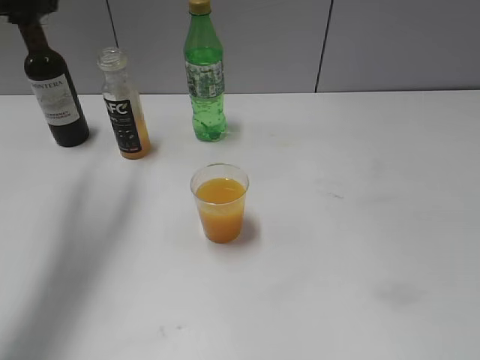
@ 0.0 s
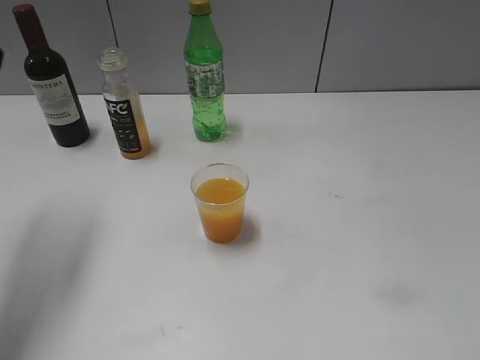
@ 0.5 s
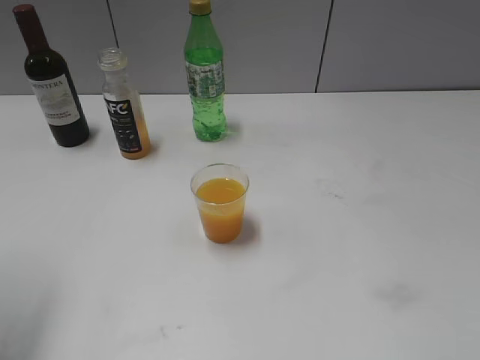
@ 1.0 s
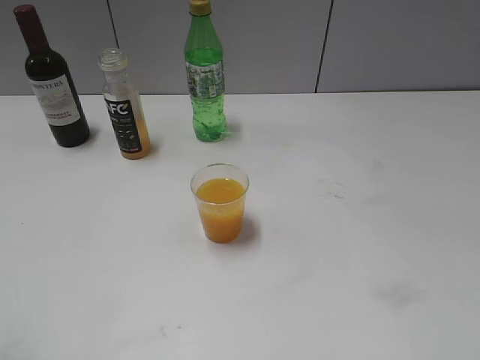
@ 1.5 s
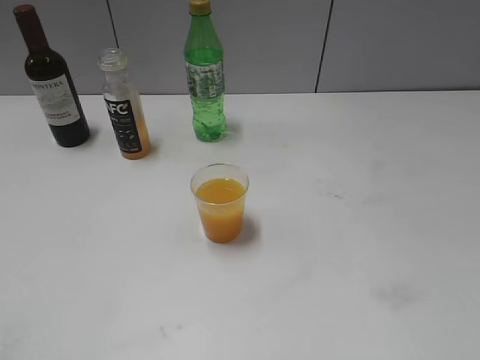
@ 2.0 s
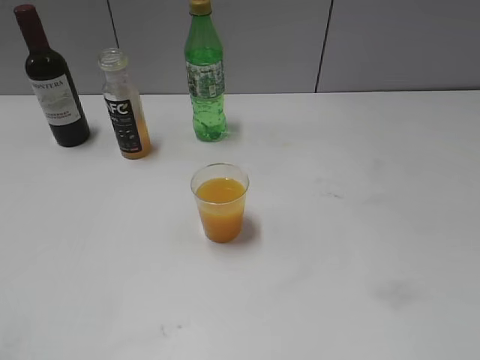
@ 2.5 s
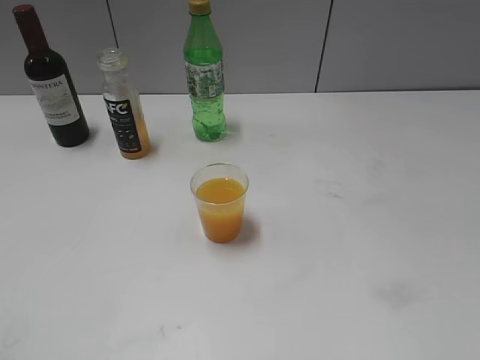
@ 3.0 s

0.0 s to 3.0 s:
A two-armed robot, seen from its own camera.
0.0 to 1.5 s: The left gripper moves backward, roughly 25 cm.

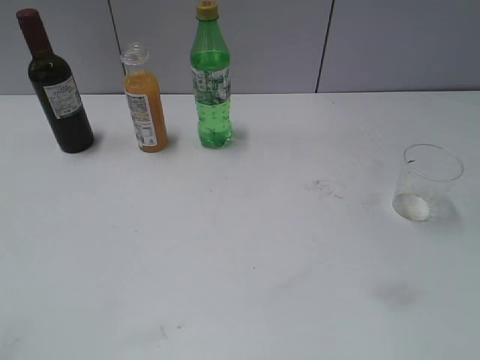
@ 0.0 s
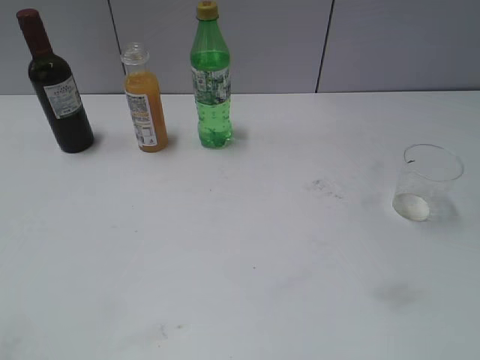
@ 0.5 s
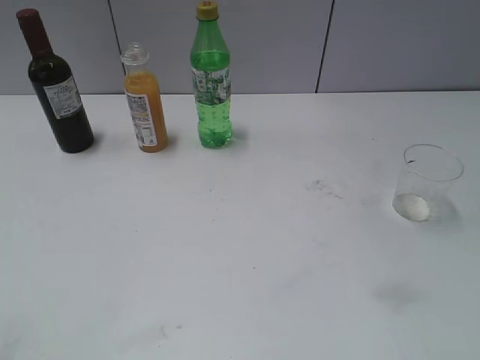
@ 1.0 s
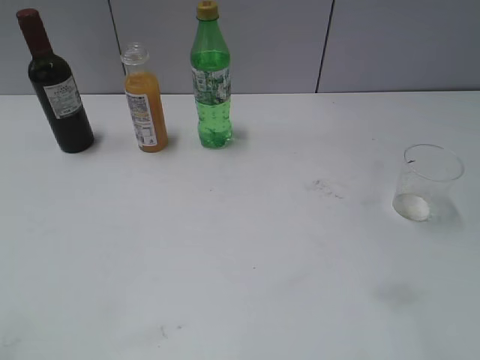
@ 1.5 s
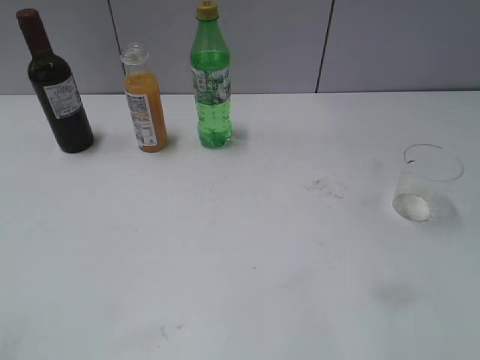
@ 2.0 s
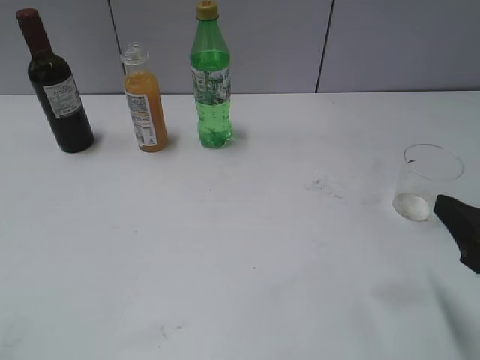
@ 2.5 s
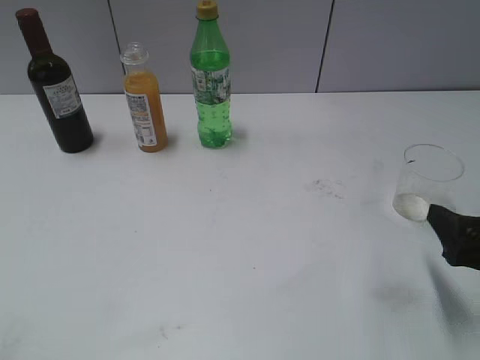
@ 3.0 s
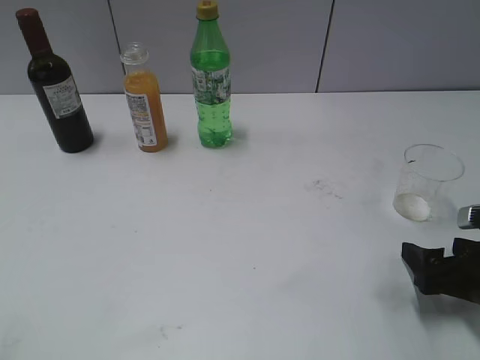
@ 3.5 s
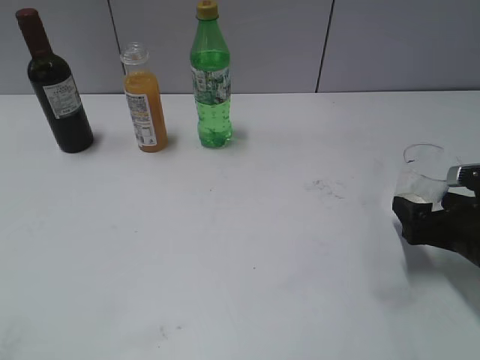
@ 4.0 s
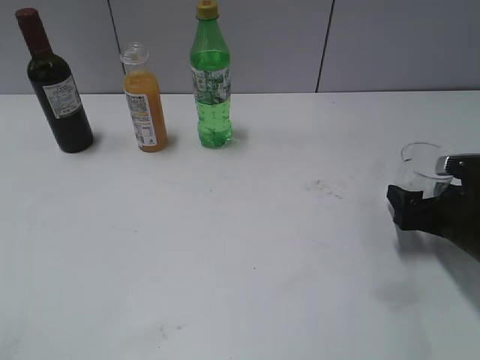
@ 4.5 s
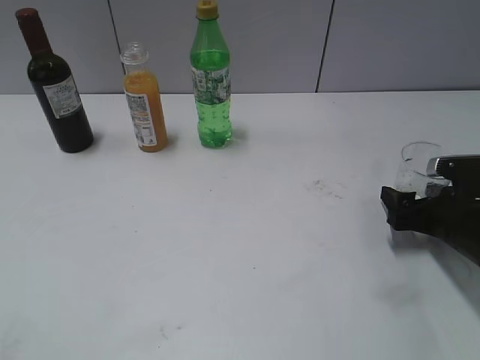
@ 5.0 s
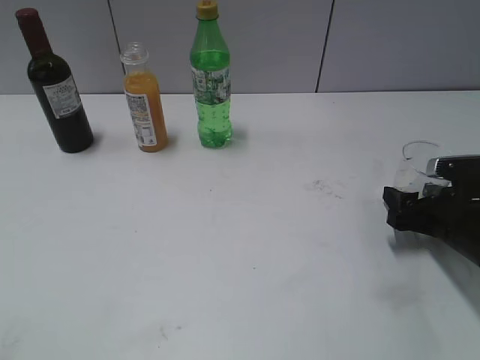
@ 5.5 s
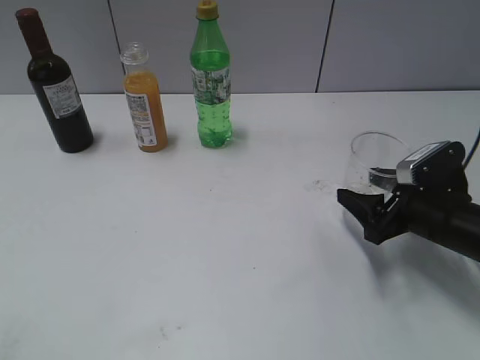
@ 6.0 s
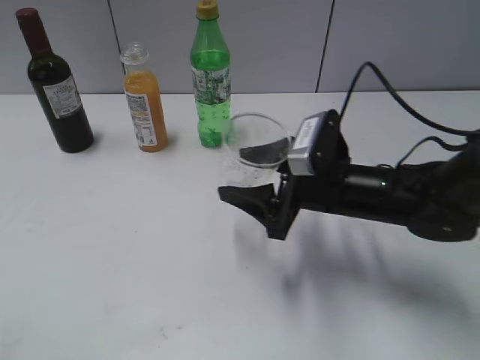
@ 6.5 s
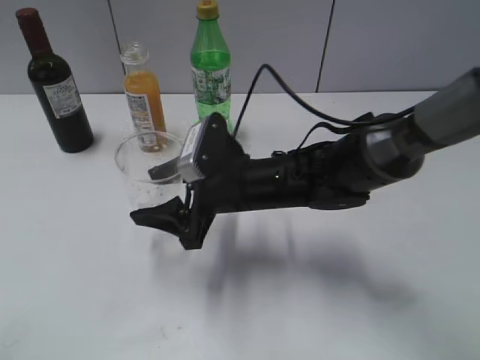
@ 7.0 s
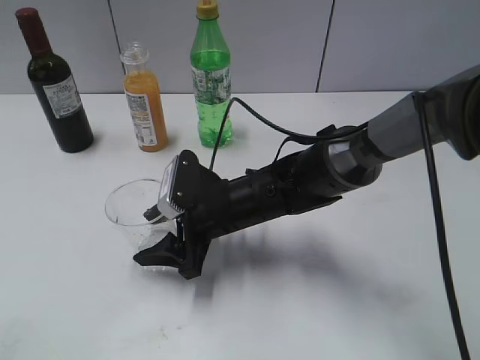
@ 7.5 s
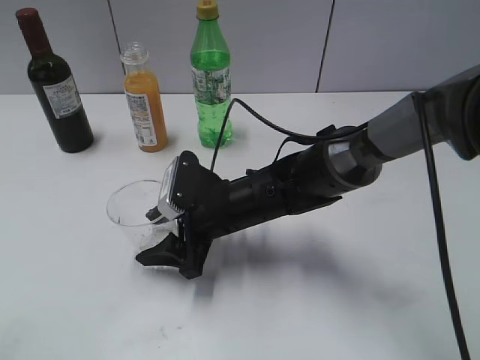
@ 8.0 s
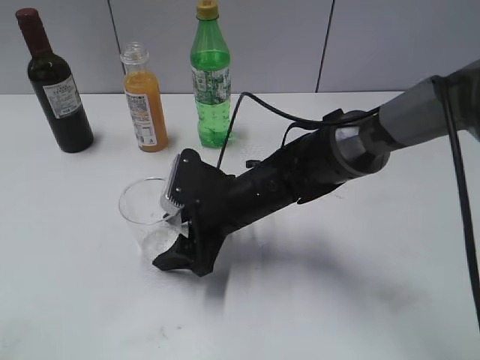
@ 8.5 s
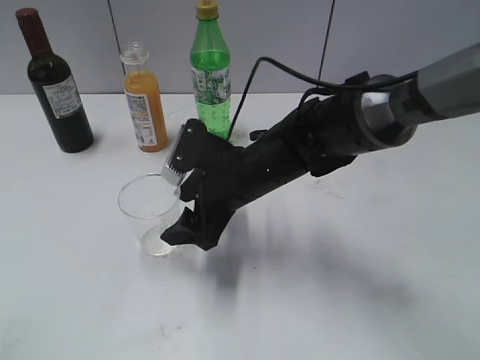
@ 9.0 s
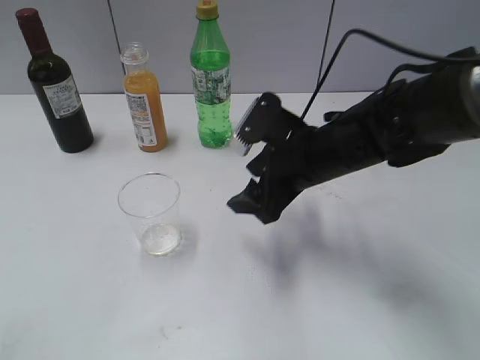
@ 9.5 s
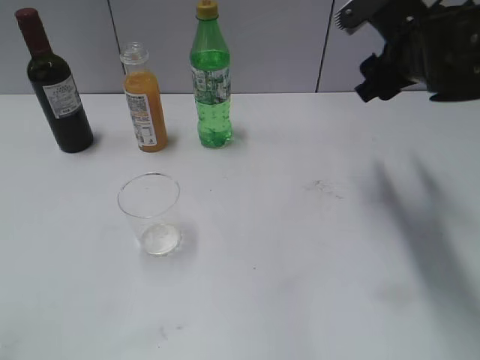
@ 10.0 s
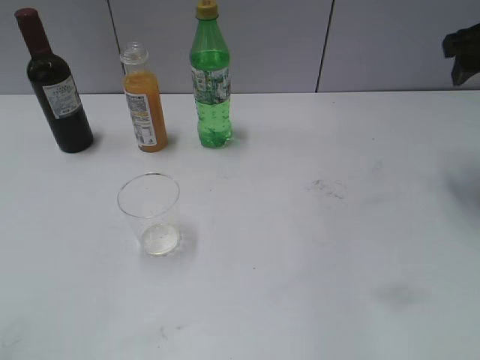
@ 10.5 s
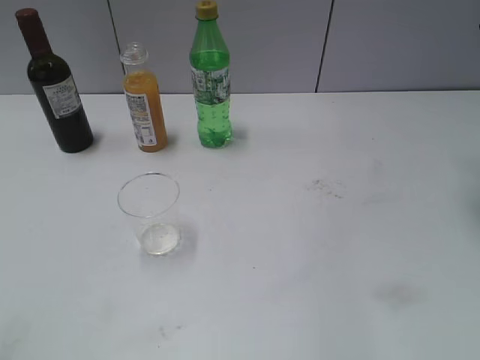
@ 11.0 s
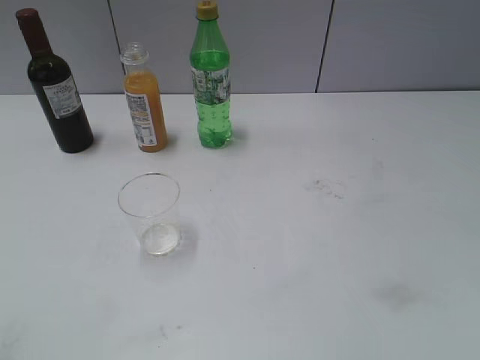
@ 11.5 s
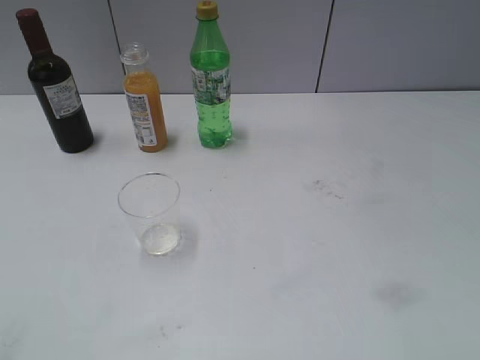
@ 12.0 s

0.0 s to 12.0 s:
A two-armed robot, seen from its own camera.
Step, 2.5 to 5.0 s: Grasp the transparent cup with right gripper.
Step, 6.0 to 9.0 s: Place the transparent cup on the table with right gripper.
2.0 to 4.0 s: The right gripper goes about 20 cm downward and forward, and opens.
4.0 to 6.0 s: The right gripper moves roughly 5 cm, and closes its fingers.
6.0 to 8.0 s: The right gripper moves to the left, approximately 25 cm.
8.0 to 10.0 s: The right gripper shifts roughly 25 cm to the right and upward.
10.0 to 12.0 s: The right gripper goes about 25 cm backward and to the right.

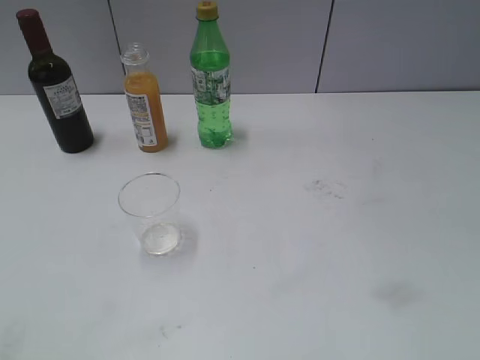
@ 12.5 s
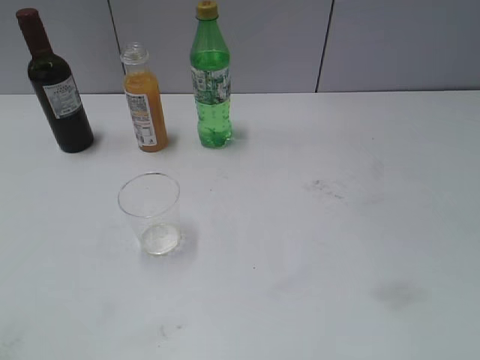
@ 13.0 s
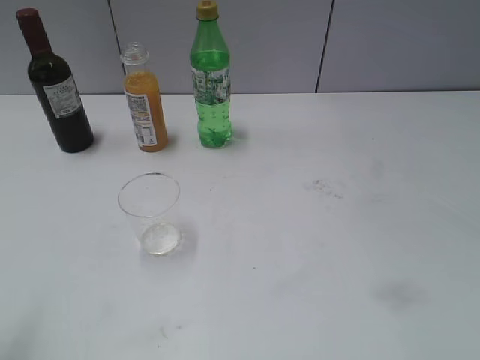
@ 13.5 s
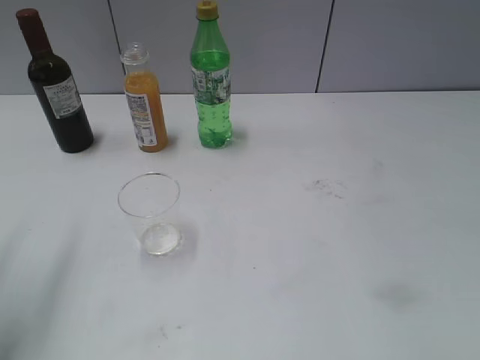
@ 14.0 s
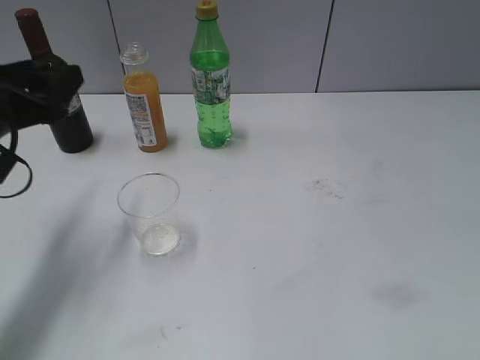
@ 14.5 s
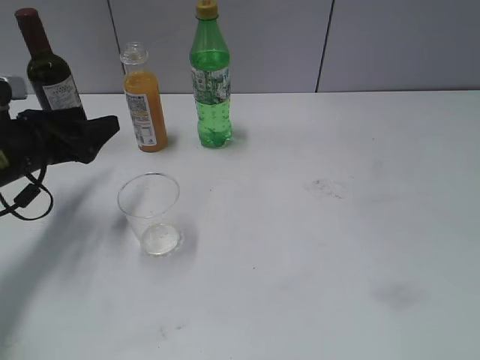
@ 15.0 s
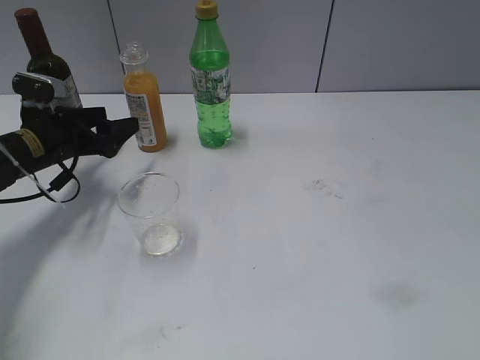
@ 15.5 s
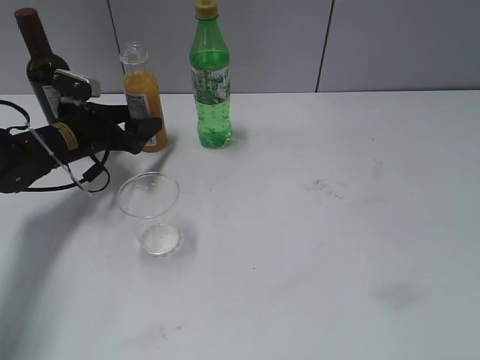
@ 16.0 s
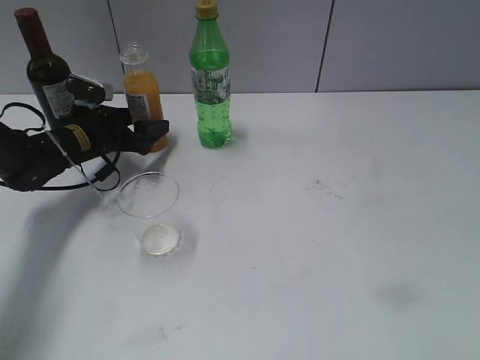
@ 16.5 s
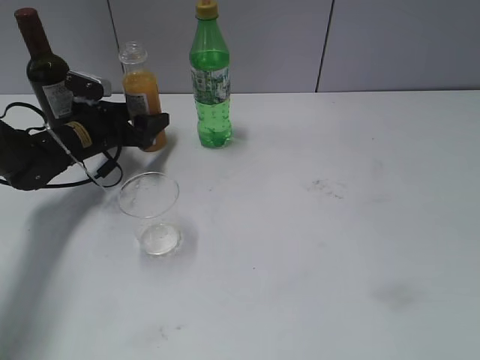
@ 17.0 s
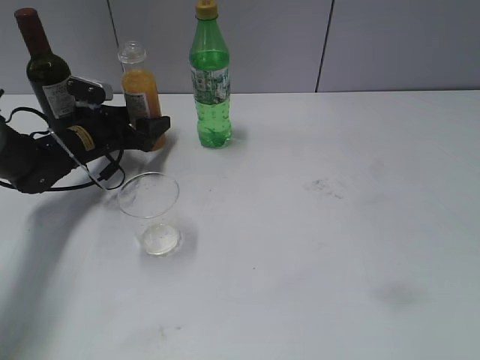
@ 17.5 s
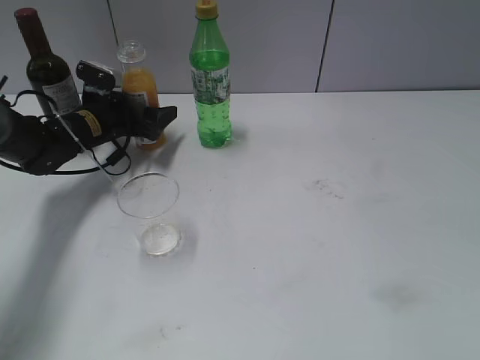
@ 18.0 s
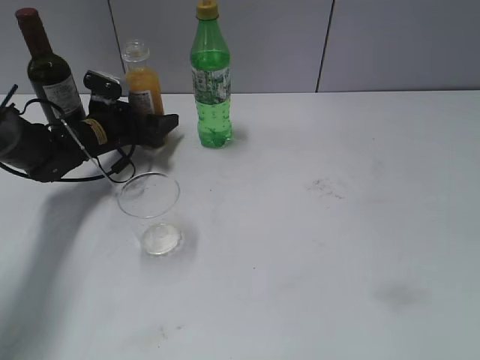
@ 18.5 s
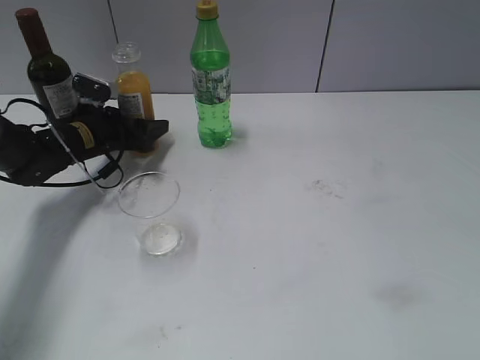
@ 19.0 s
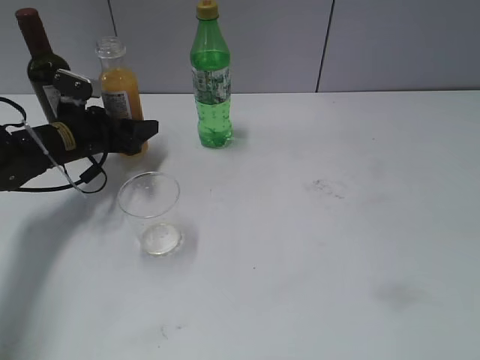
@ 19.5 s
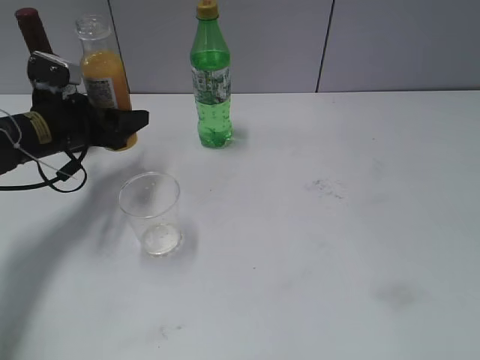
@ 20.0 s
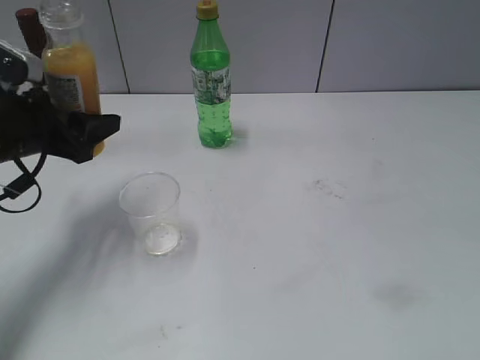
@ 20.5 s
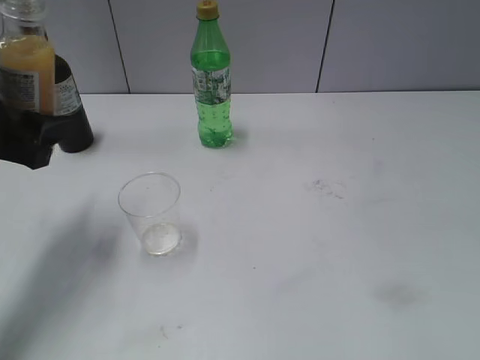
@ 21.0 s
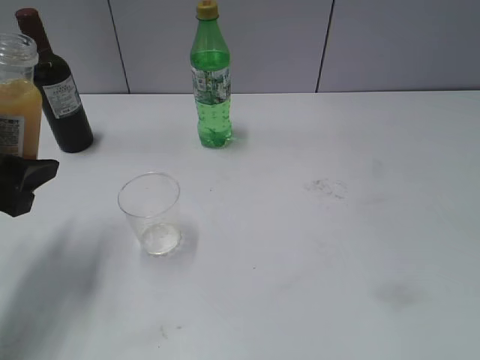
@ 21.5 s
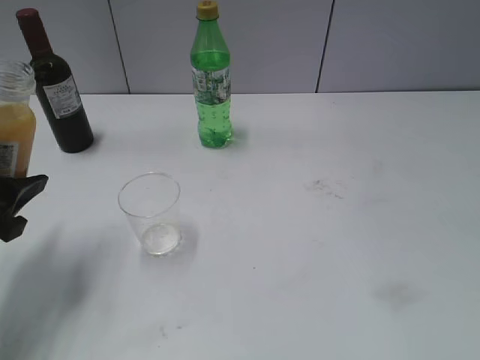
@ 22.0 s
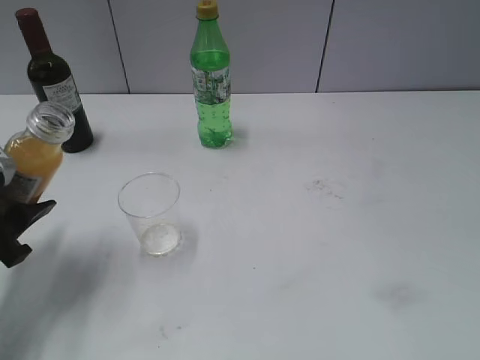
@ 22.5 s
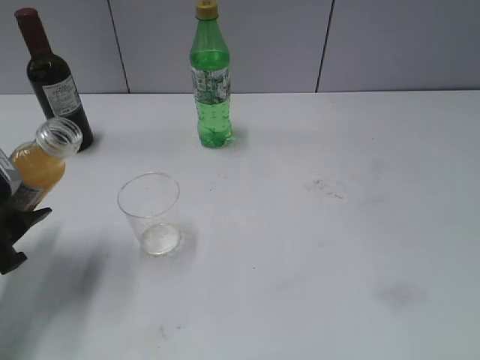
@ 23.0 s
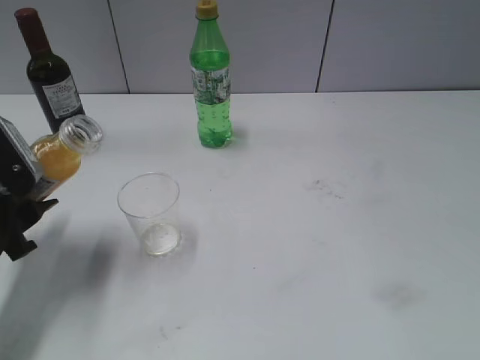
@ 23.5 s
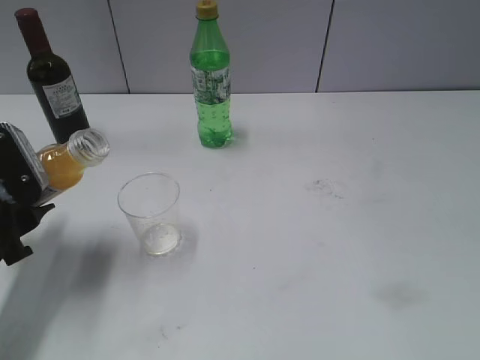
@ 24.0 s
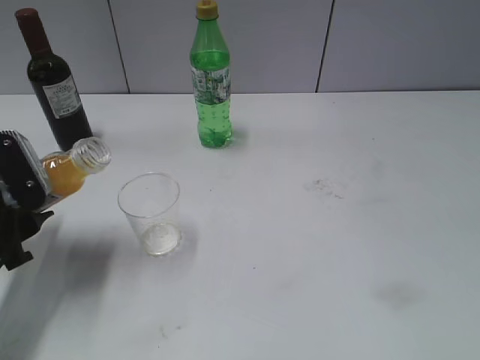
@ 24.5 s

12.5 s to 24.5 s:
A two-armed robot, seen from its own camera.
Step, 12.5 to 18.5 s: Grasp the bottle with orange juice with left gripper.
12.5 to 14.5 s: The left gripper heads forward, covering approximately 30 cm.
14.5 to 16.5 s: The left gripper heads forward and downward, covering roughly 20 cm.
16.5 to 18.5 s: The left gripper closes.
18.5 to 20.5 s: The left gripper goes roughly 20 cm backward and upward.
20.5 to 22.5 s: The left gripper shifts roughly 10 cm backward.
22.5 to 24.5 s: The grippers move only a little.
